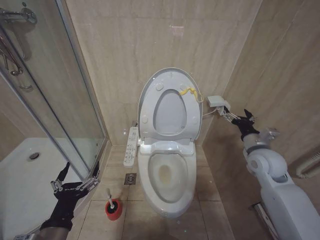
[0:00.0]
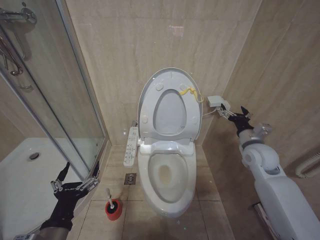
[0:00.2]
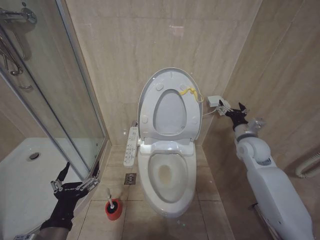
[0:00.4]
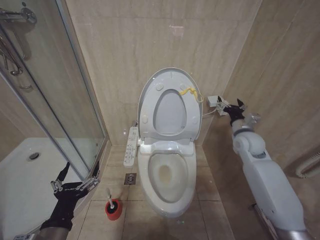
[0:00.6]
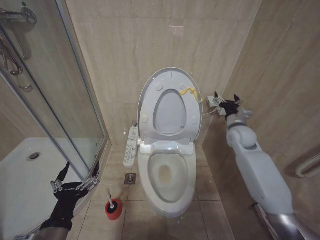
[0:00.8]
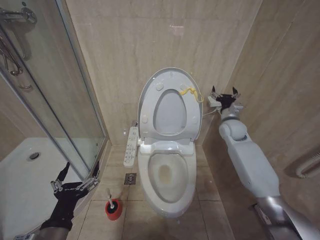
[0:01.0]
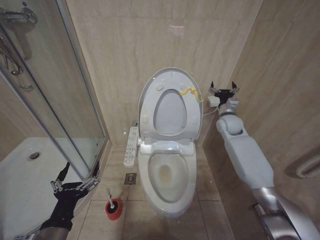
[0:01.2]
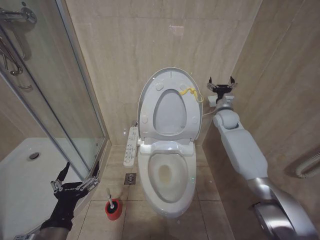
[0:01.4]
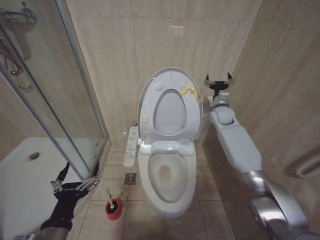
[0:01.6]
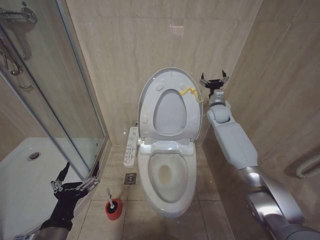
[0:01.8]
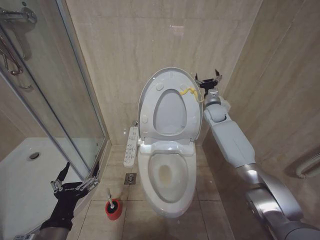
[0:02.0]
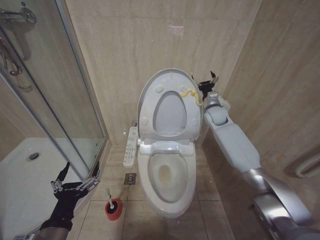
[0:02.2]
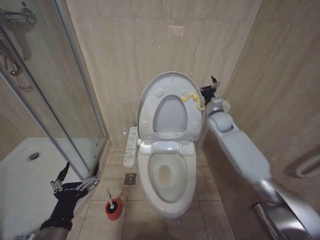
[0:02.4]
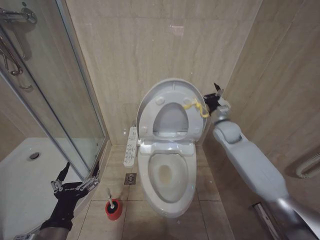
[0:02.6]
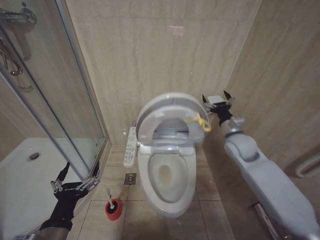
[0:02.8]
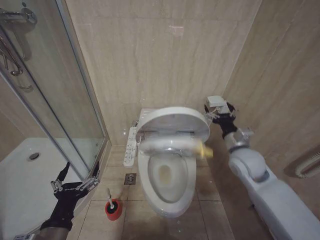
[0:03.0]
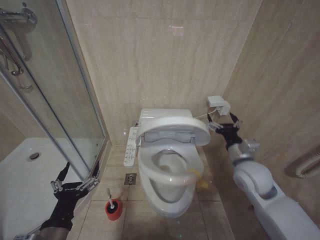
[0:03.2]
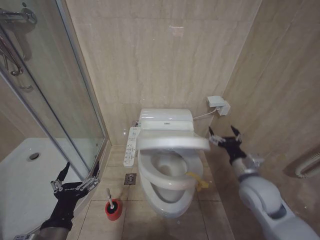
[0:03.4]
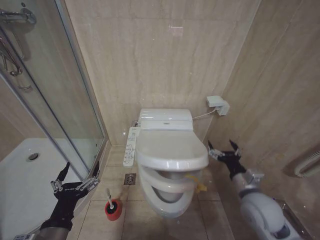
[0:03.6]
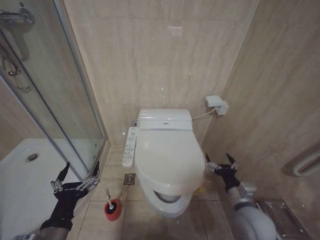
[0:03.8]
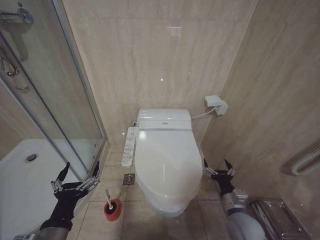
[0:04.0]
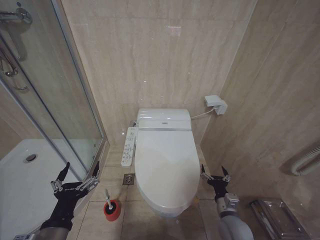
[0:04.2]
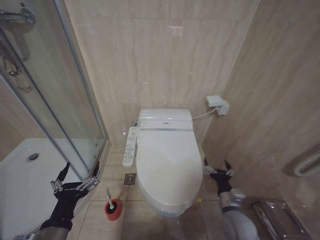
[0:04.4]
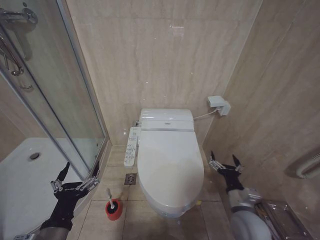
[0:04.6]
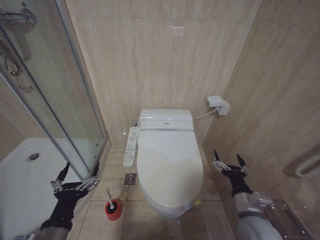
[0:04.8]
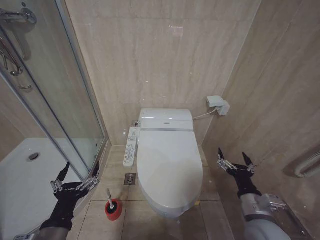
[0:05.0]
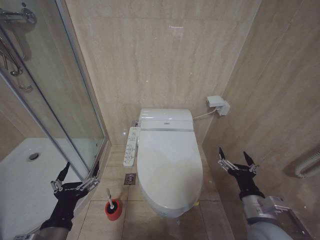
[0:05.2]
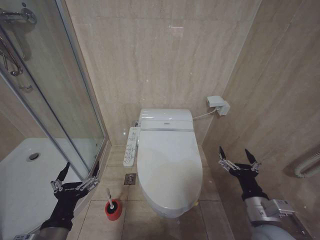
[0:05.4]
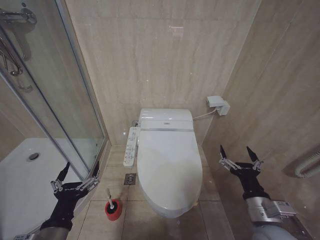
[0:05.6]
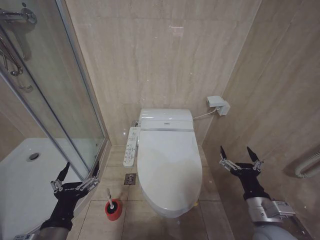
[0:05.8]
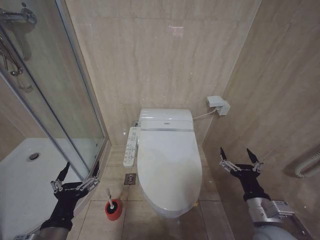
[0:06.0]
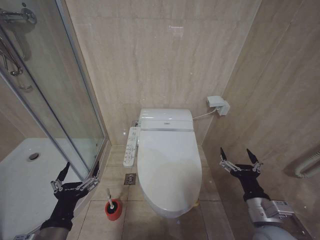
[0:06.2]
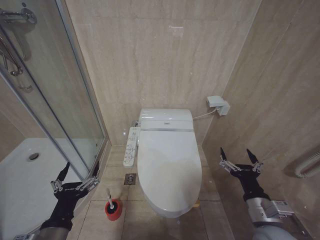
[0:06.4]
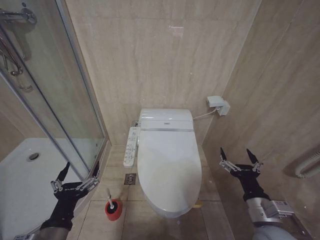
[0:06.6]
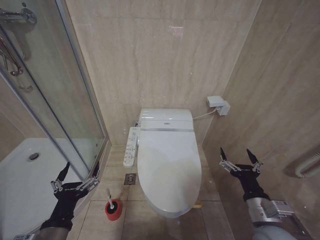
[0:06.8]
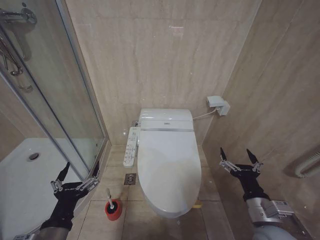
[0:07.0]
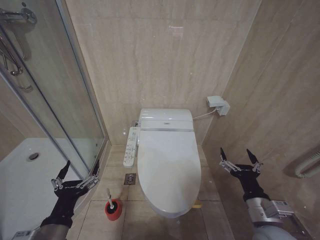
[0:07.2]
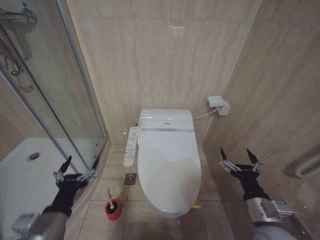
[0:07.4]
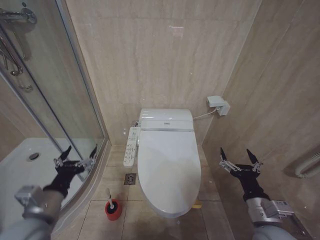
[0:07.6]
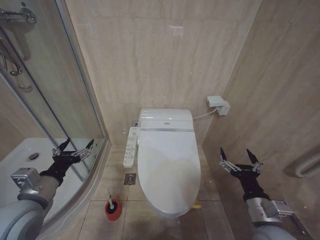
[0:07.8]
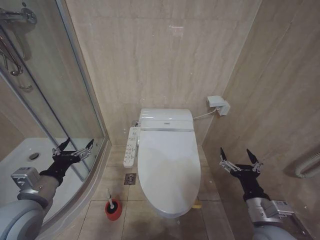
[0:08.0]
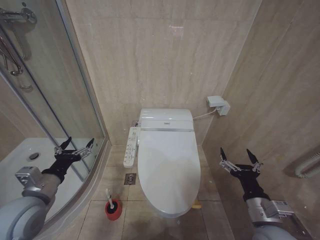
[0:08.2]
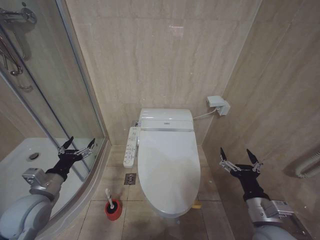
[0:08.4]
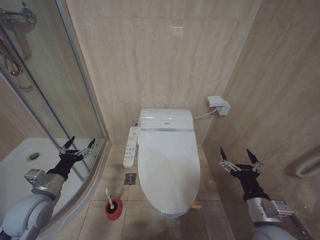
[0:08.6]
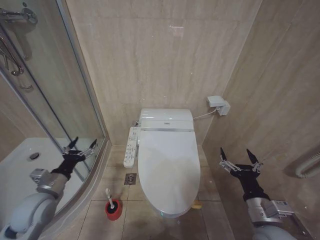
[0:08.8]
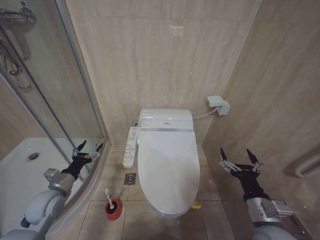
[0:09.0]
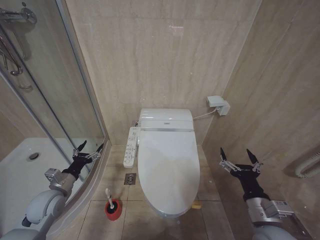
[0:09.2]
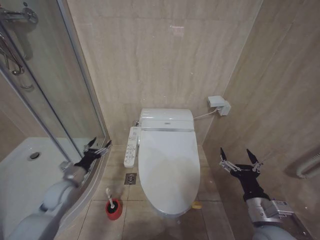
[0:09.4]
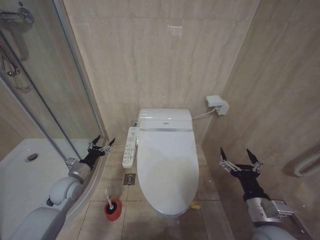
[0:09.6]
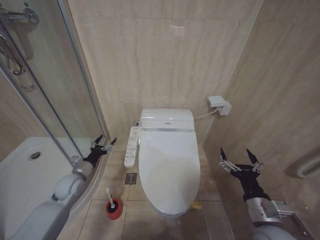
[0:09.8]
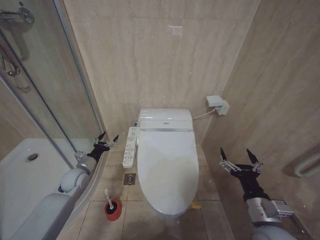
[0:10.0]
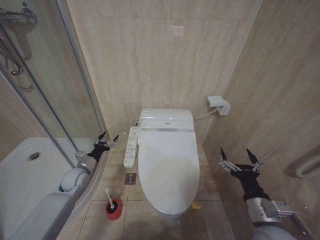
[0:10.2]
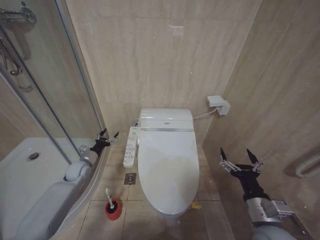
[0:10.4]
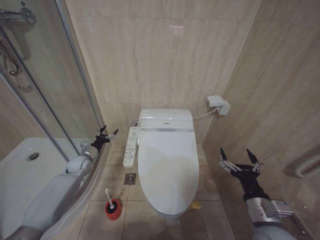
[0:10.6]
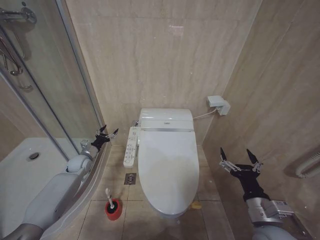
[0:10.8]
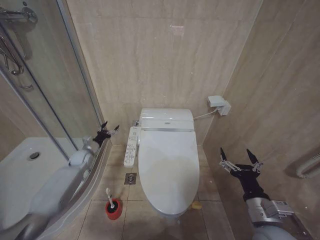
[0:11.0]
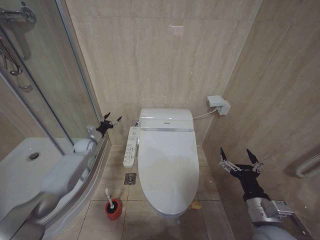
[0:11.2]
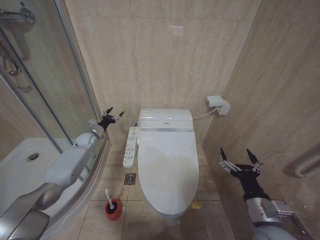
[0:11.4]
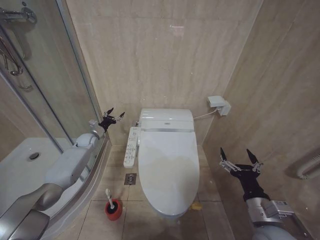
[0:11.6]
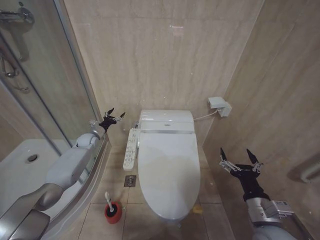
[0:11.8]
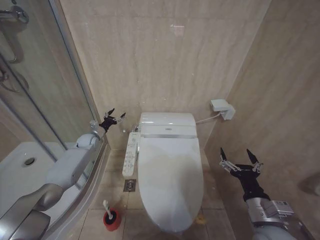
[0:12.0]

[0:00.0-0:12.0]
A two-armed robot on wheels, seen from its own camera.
Task of the whole recording: Open the toilet lid, clean the toilet bowl with a toilet brush, close the toilet lid, and flush.
0:00.0 to 0:01.6: The right gripper goes about 25 cm forward.
0:01.6 to 0:03.0: The right gripper is displaced backward by roughly 20 cm.
0:03.0 to 0:04.4: The right gripper shifts about 25 cm downward and backward.
0:04.4 to 0:06.0: The right gripper goes about 15 cm upward and backward.
0:06.0 to 0:07.6: The left gripper goes approximately 5 cm forward.
0:07.6 to 0:09.0: The left gripper travels forward, downward and to the left by approximately 15 cm.
0:09.0 to 0:10.4: The left gripper moves forward, about 15 cm.
0:10.4 to 0:12.0: The left gripper moves forward, some 15 cm.

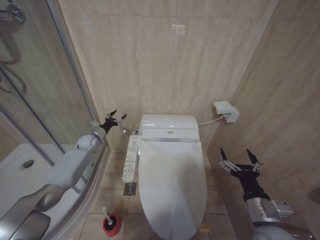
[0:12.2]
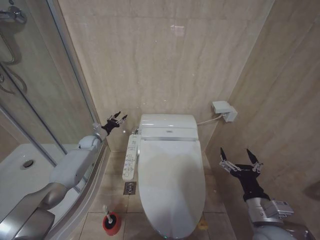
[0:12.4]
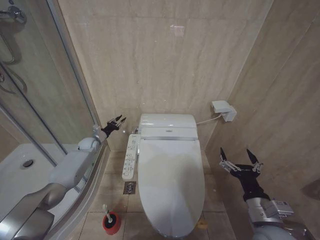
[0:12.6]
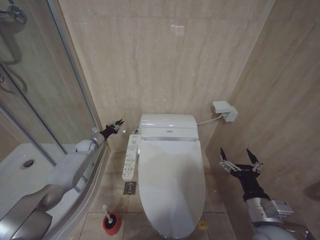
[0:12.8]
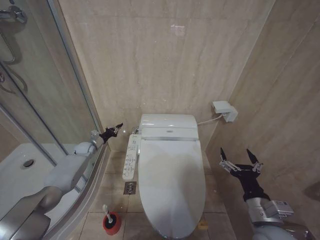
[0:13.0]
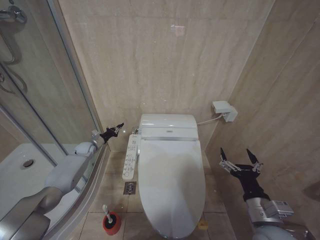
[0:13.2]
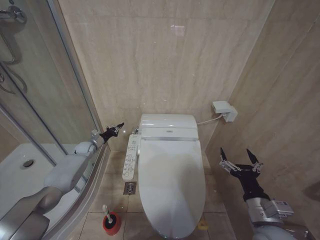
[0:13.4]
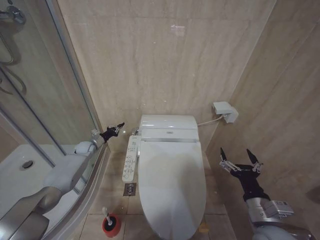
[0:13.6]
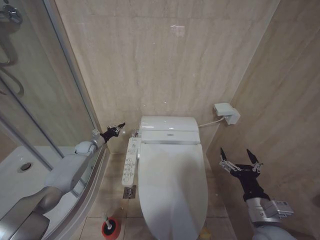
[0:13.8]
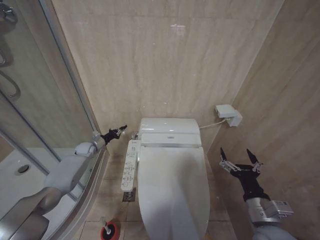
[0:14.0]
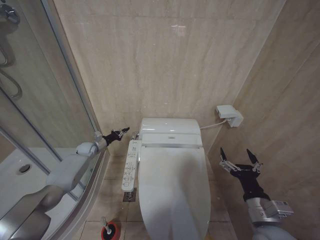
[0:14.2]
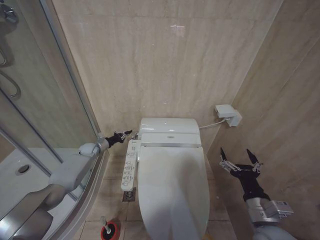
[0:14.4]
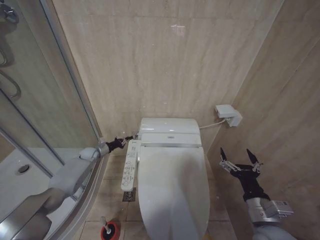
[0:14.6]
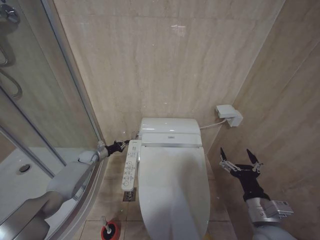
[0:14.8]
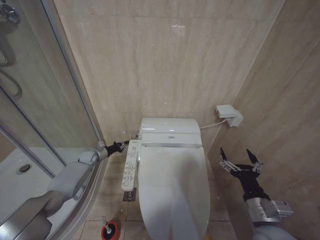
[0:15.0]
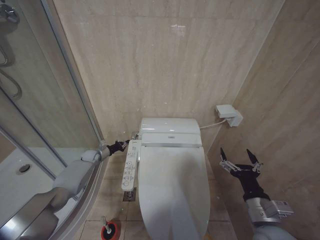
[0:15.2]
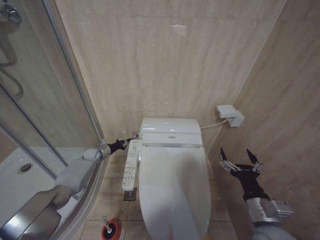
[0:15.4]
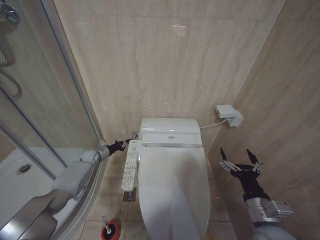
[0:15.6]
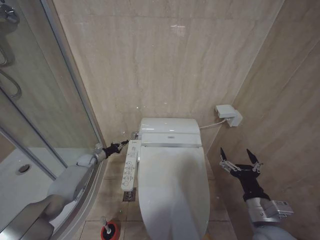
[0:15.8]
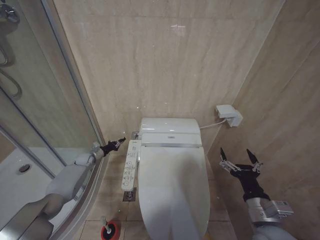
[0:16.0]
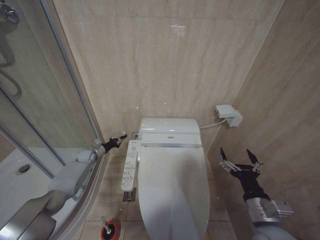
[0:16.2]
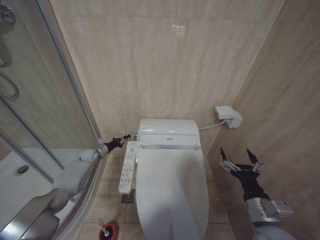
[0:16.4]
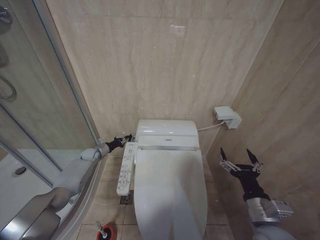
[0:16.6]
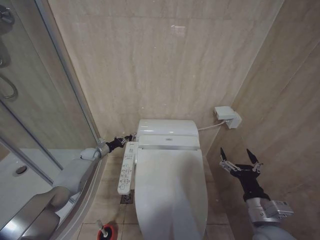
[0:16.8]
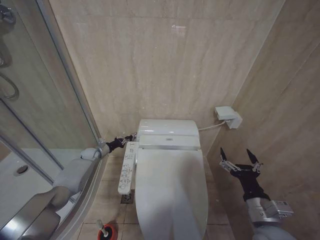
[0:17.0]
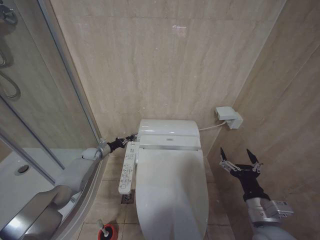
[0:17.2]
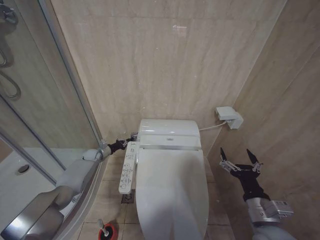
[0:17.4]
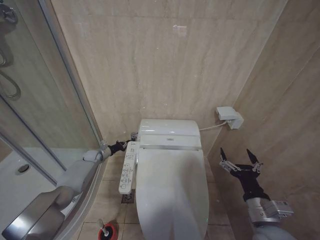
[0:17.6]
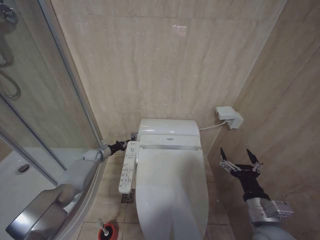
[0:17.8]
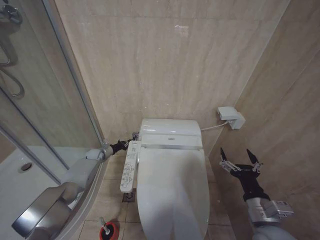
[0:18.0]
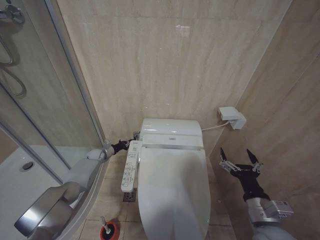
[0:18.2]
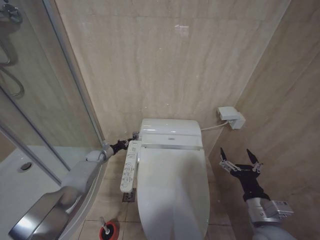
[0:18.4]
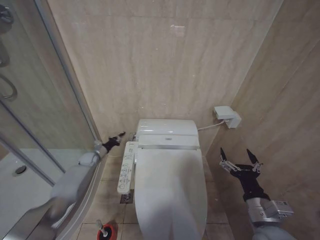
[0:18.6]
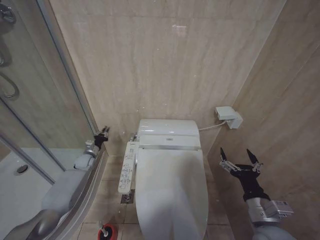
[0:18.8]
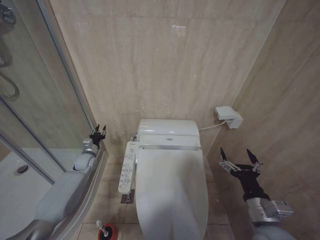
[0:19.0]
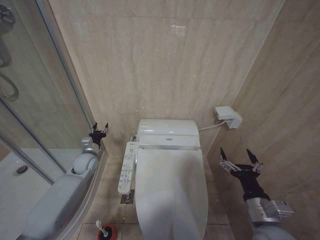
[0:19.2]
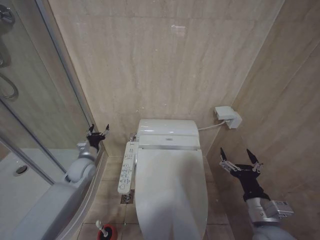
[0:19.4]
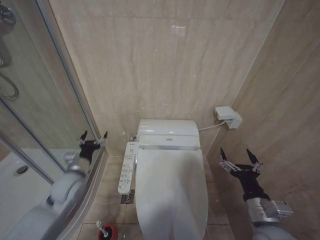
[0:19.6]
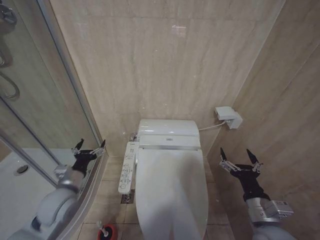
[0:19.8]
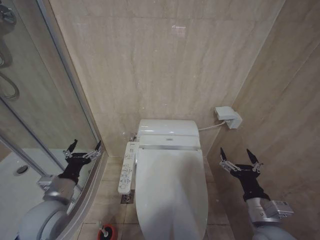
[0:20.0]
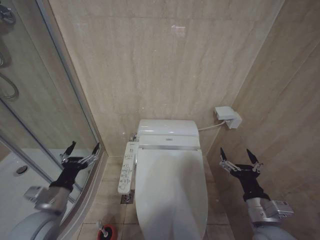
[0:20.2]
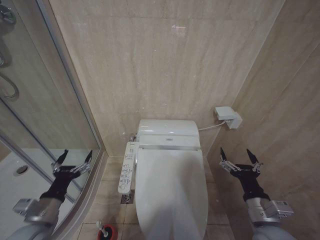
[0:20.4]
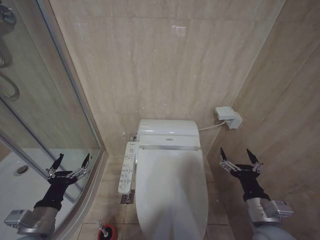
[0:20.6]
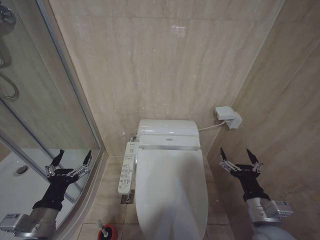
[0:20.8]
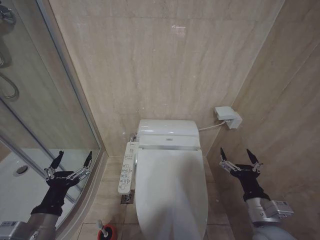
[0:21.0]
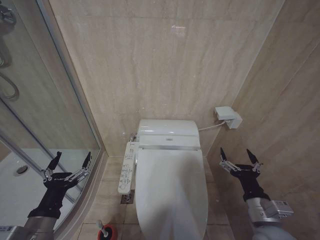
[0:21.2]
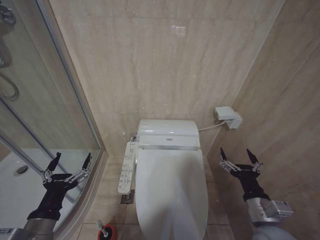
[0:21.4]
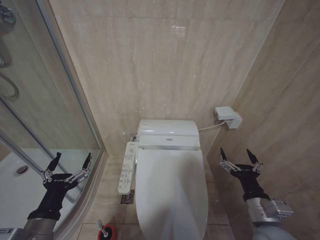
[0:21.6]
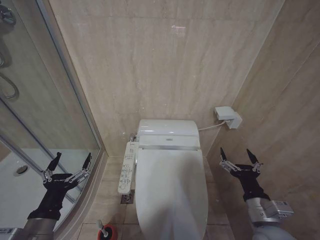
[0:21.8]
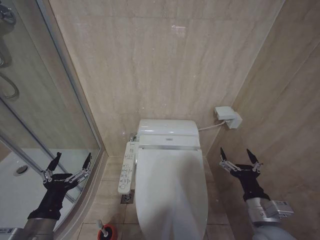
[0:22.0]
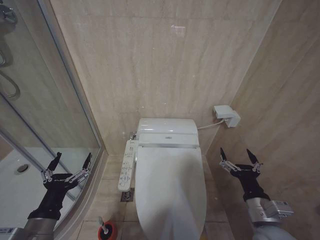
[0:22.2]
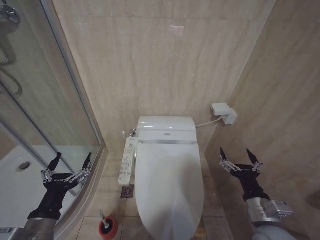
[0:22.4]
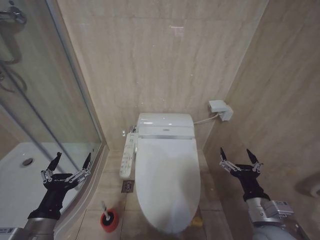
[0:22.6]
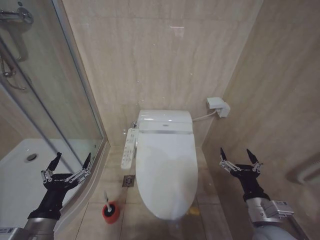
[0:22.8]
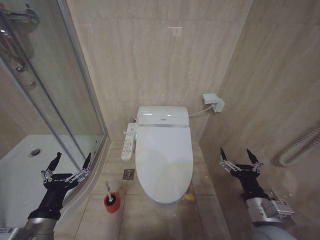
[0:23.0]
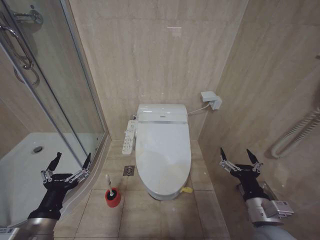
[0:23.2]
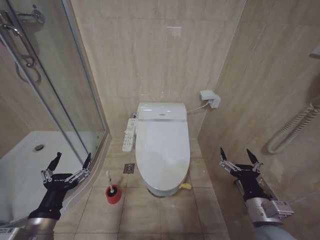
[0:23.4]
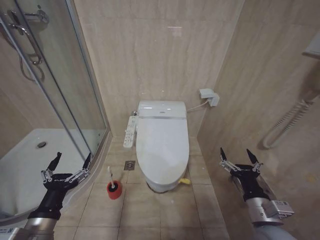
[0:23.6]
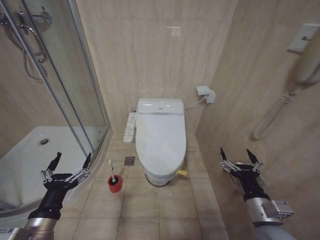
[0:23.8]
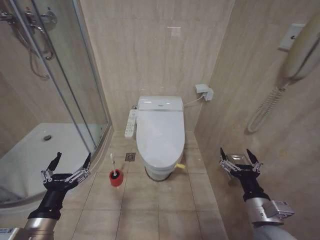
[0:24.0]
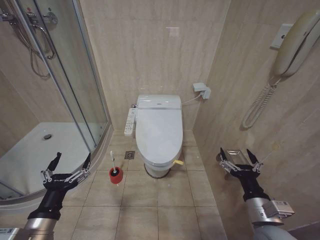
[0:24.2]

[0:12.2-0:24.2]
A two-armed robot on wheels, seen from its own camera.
Task of the whole recording: Open the toilet lid, clean the toilet bowl with a toilet brush, close the toilet lid, and flush.
0:12.2 to 0:13.8: The left gripper closes.
0:13.8 to 0:15.2: The left gripper heads downward, covering approximately 5 cm.
0:15.2 to 0:18.2: The grippers move only a little.
0:18.2 to 0:19.8: The left gripper is displaced backward and upward by approximately 30 cm, and opens.
0:19.8 to 0:21.2: The left gripper goes roughly 15 cm backward.
0:21.2 to 0:22.6: Both grippers stay put.
